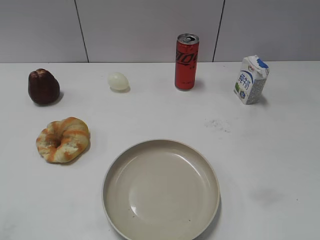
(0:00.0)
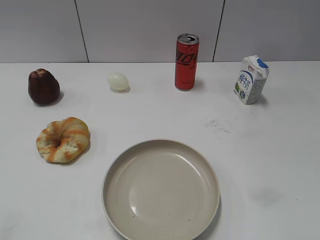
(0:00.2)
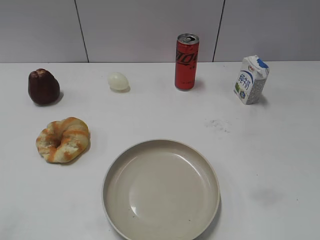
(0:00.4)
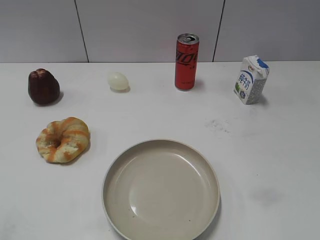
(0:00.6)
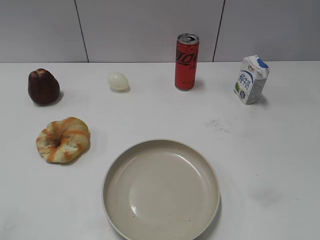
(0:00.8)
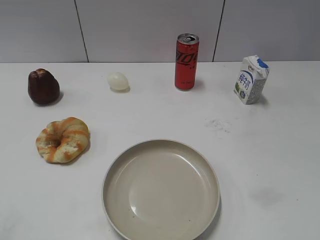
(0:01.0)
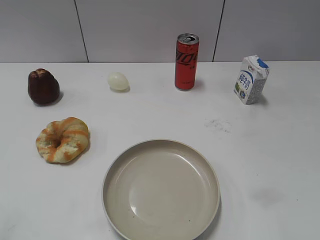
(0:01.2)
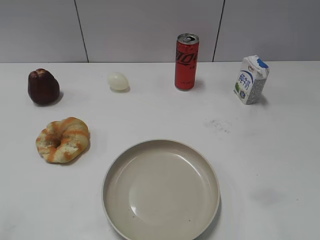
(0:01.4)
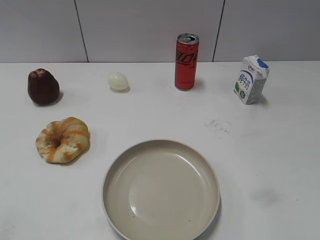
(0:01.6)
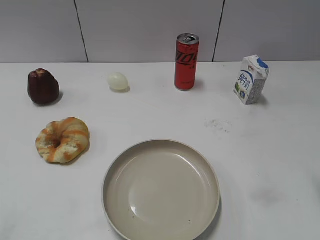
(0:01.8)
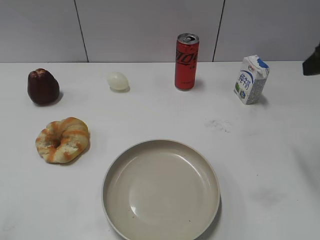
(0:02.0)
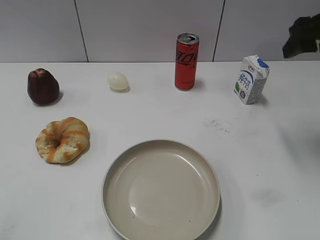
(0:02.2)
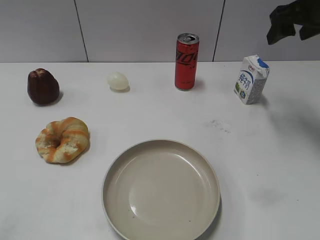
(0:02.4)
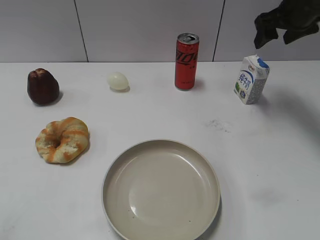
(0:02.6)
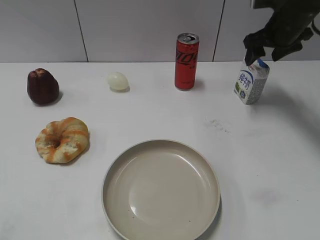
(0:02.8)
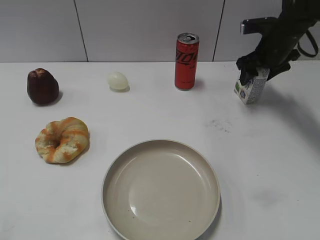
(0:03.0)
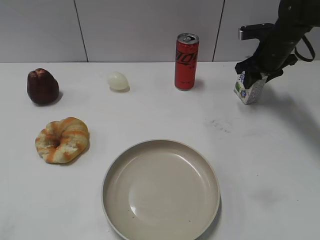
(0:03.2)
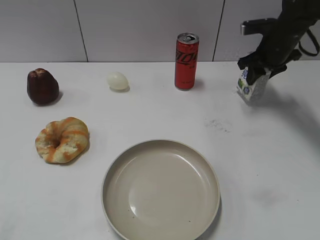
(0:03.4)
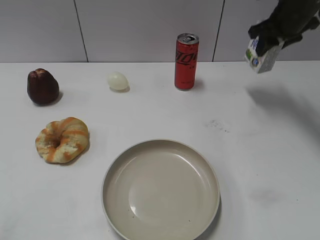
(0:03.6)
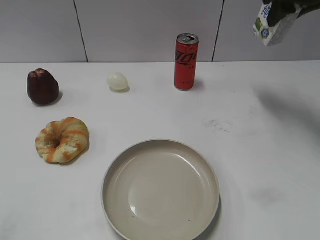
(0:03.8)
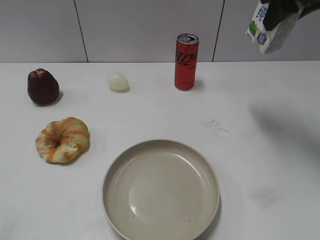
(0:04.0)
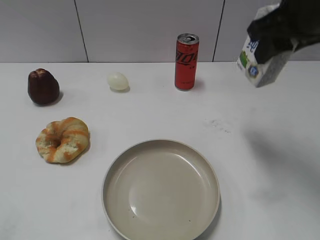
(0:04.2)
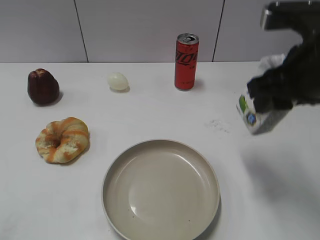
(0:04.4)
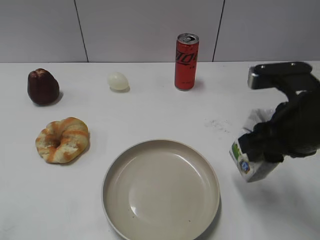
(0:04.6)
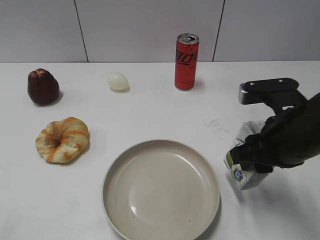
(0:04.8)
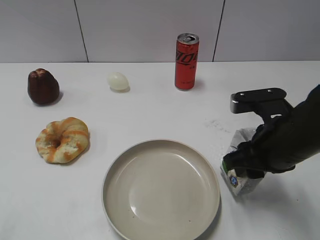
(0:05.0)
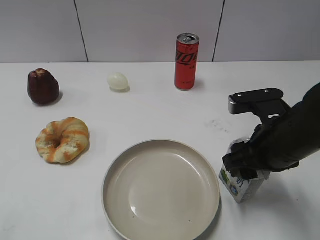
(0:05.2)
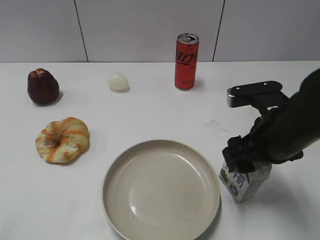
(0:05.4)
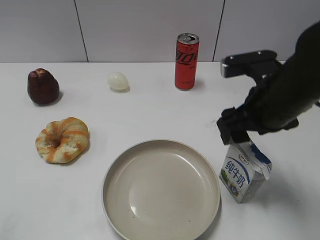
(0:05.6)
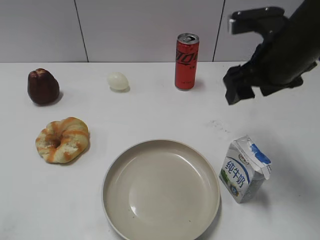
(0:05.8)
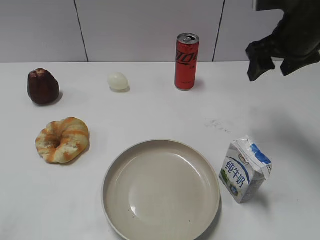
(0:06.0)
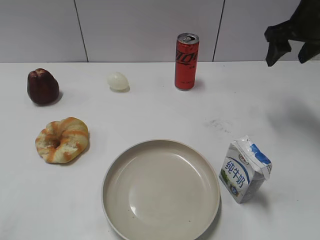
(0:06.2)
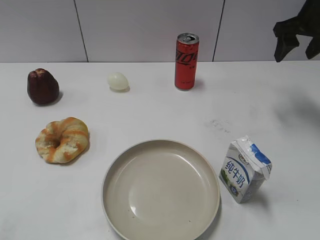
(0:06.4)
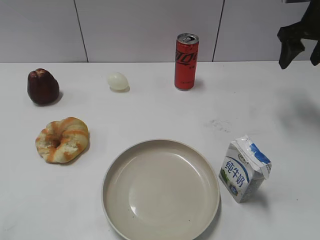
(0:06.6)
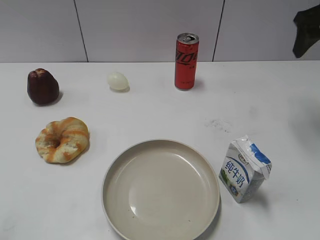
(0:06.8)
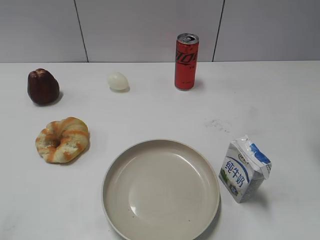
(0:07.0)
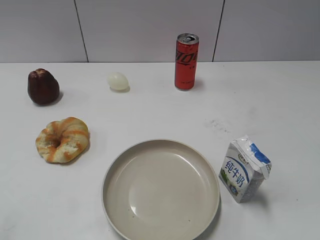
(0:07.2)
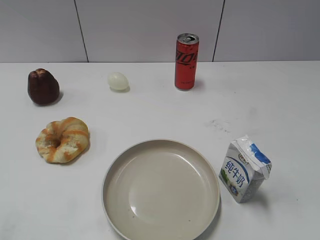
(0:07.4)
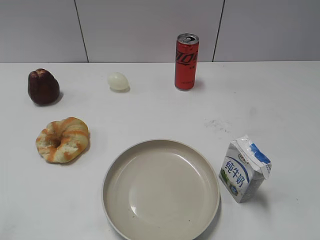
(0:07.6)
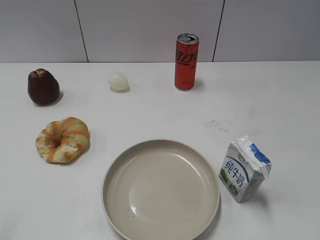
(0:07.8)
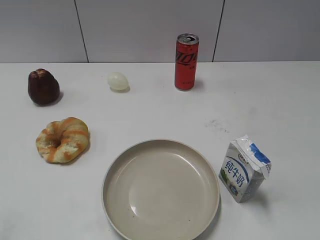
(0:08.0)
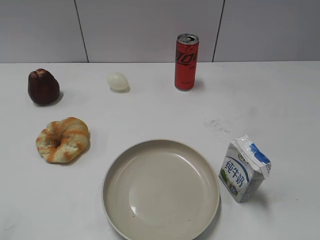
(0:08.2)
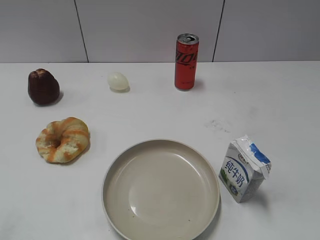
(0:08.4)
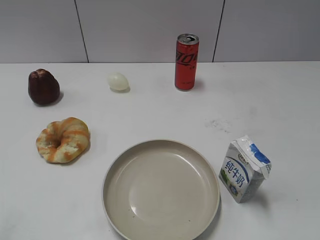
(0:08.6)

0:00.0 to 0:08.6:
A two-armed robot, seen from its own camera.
Step, 0:01.0 to 0:03.2: Grasp the milk with right gripper.
Step, 0:03.6 to 0:05.6: Place the milk on the table with right gripper.
0:01.4 to 0:02.8: The right gripper is displaced forward by some 40 cm.
0:02.8 to 0:04.4: The right gripper is displaced backward by roughly 25 cm, and closes its fingers.
0:04.4 to 0:05.8: The right gripper travels forward by about 5 cm, reaches approximately 10 cm downward, then returns, and opens its fingers.
0:05.8 to 0:07.2: The right gripper heads to the right and upward, covering approximately 15 cm, and moves about 15 cm forward and comes back.

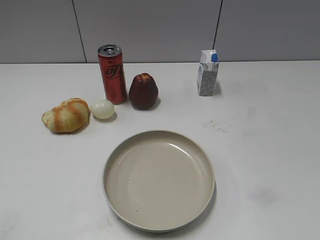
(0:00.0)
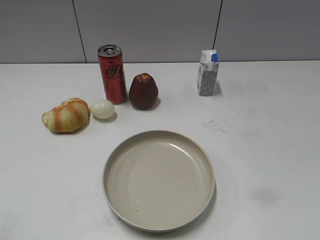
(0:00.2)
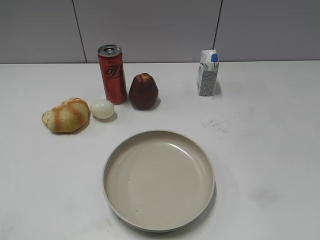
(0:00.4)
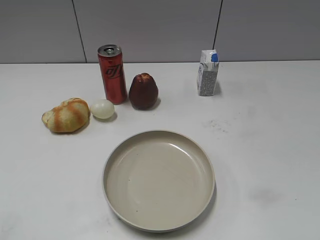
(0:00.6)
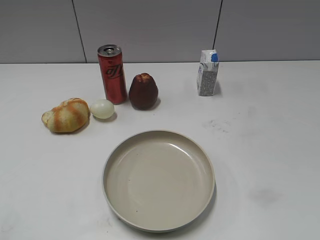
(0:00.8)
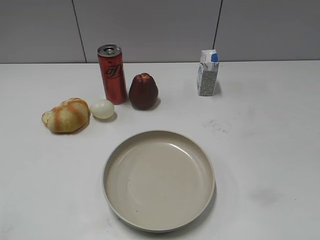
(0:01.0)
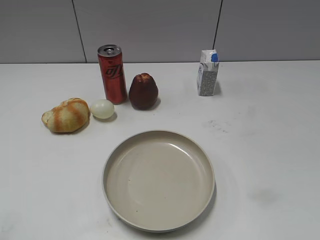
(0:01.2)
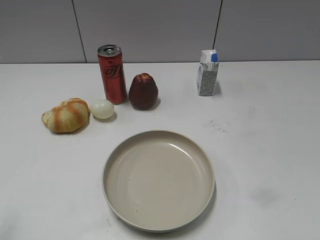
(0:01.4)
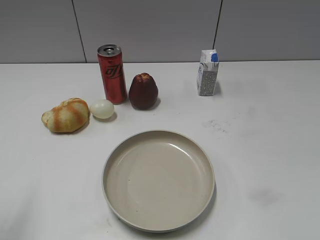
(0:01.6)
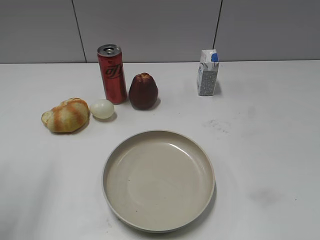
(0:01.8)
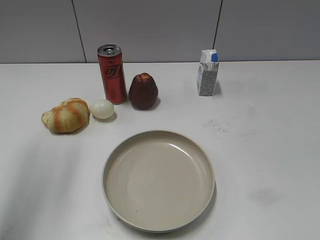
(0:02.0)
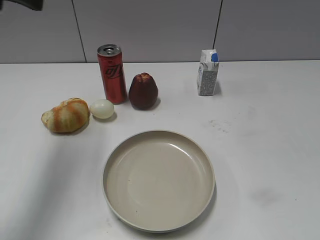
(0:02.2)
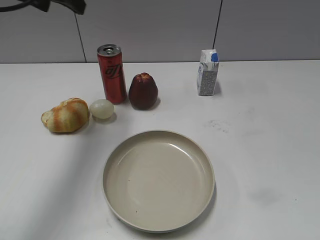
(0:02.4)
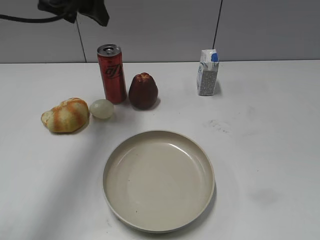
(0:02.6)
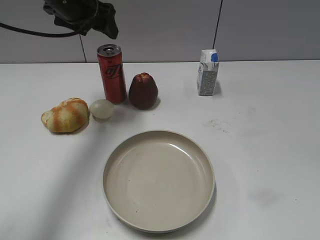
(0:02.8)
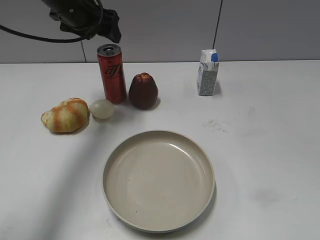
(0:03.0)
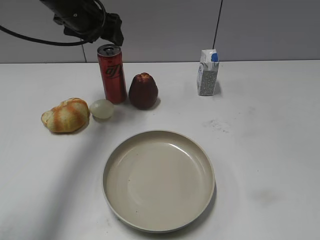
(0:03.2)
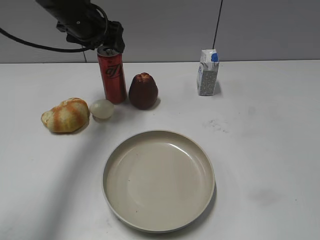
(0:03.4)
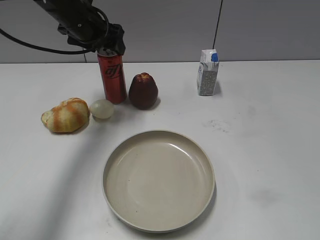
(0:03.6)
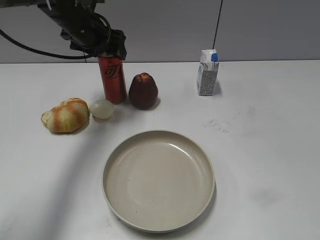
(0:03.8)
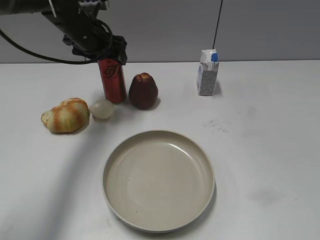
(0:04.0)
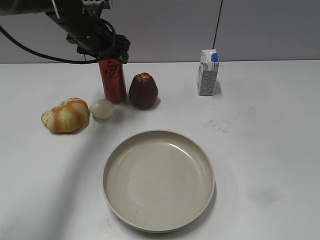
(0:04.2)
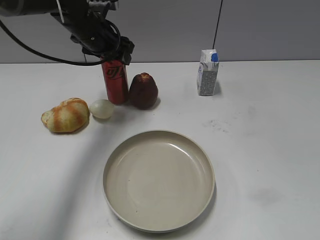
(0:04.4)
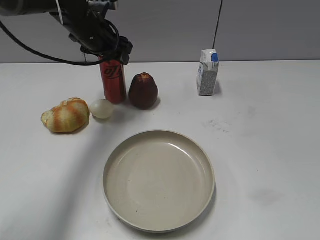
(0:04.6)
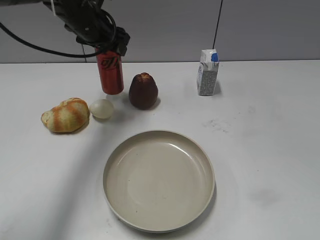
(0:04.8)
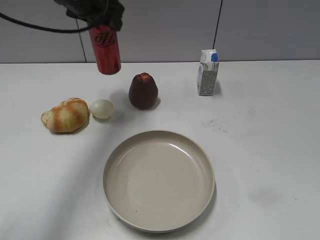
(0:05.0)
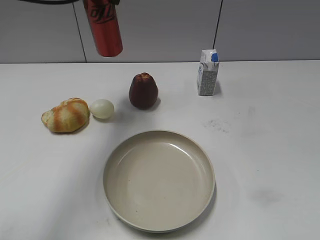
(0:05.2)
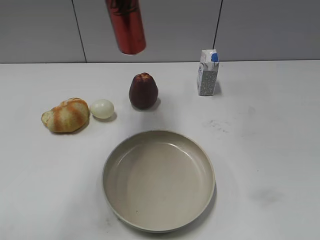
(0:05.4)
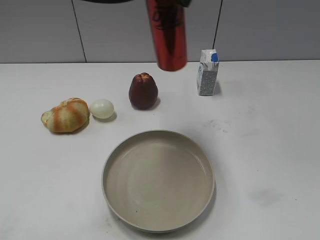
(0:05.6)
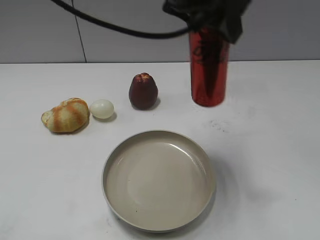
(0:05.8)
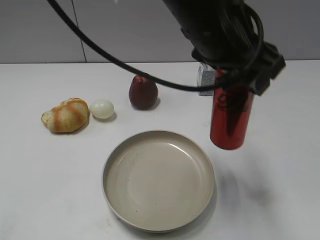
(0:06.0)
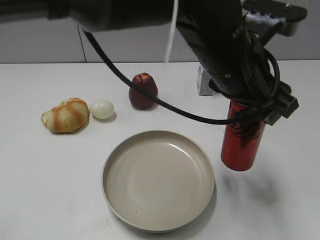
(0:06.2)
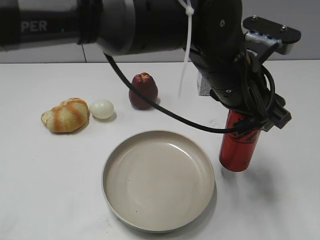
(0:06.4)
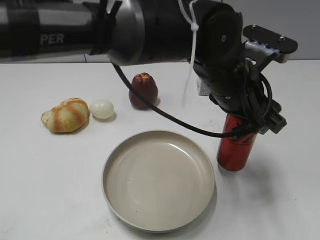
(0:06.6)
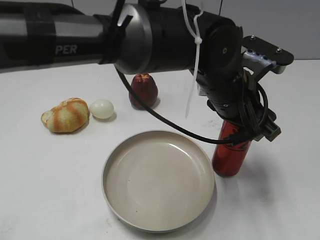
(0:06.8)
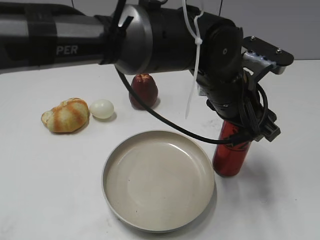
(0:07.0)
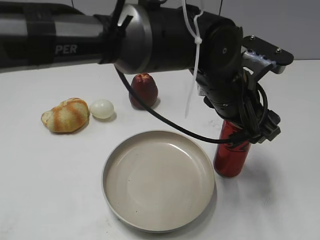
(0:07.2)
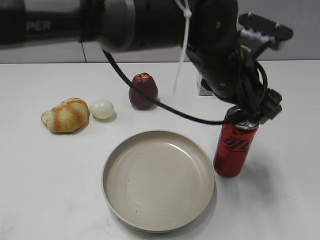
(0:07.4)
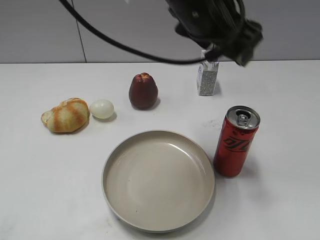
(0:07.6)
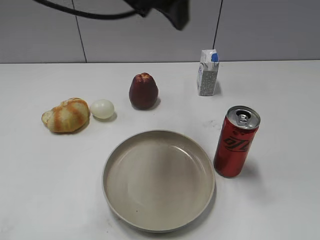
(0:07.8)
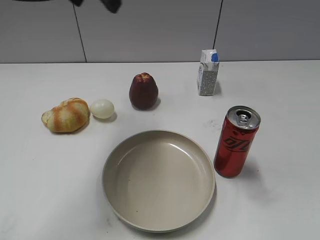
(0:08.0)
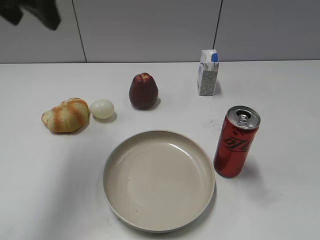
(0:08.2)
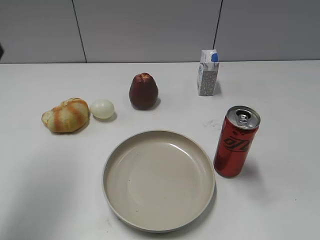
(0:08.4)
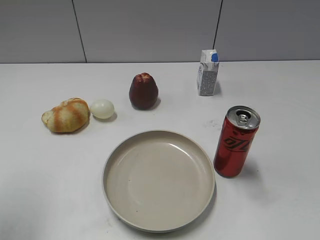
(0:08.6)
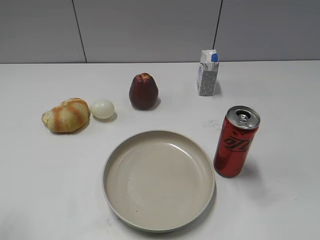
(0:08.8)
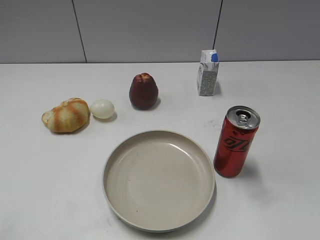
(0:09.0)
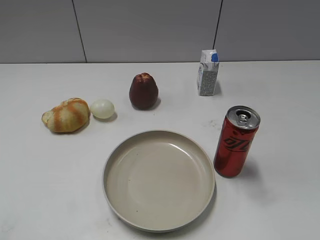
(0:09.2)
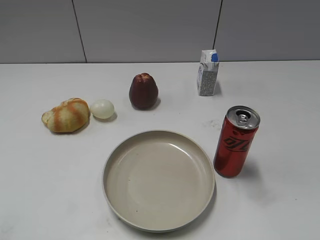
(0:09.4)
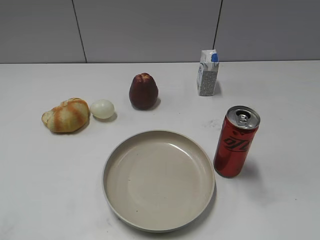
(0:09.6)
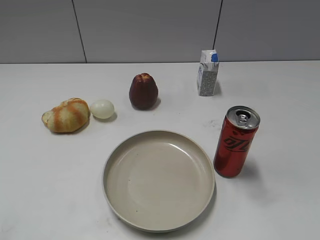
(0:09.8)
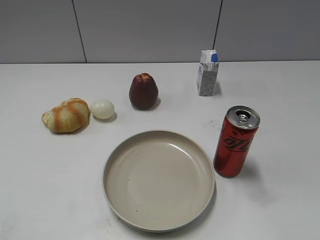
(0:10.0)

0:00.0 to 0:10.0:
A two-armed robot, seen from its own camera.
Step, 0:01.2 to 0:04.2: Grasp the cola with left gripper.
Step, 0:04.4 to 0:07.4: Place the cola on the table with left gripper.
0:01.4 to 0:02.8: The left gripper moves forward and to the right, roughly 40 cm, and opens up.
0:02.8 to 0:04.2: The left gripper shifts some 5 cm downward, and closes up.
0:04.2 to 0:05.8: The left gripper travels backward, to the right and upward by approximately 30 cm.
0:05.8 to 0:07.2: The left gripper goes roughly 15 cm downward and to the right, and opens its fingers.
0:07.2 to 0:08.6: The left gripper shifts about 40 cm to the left, and closes.
0:08.6 to 0:10.0: The left gripper moves backward and downward, some 15 cm.
